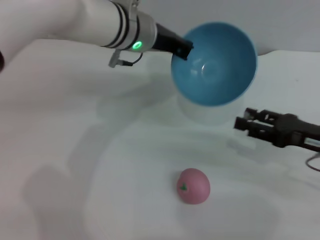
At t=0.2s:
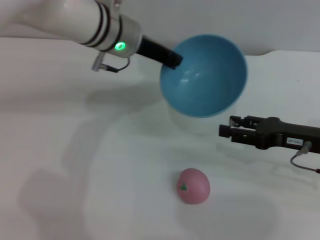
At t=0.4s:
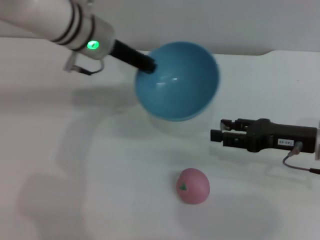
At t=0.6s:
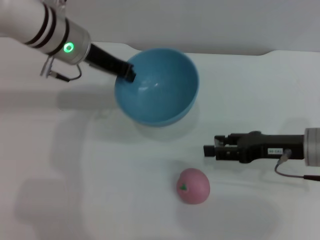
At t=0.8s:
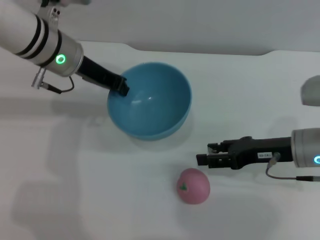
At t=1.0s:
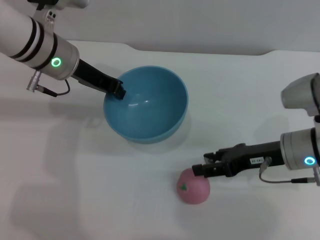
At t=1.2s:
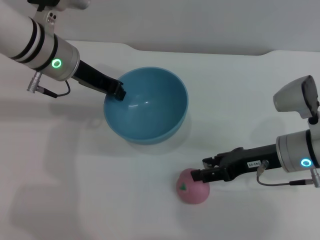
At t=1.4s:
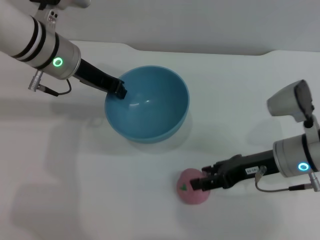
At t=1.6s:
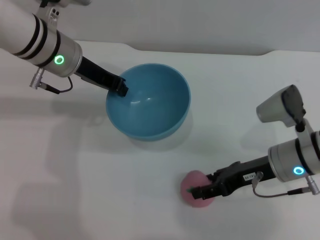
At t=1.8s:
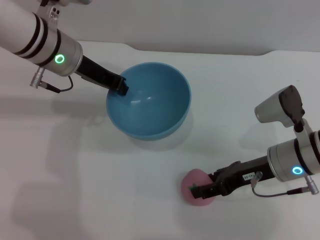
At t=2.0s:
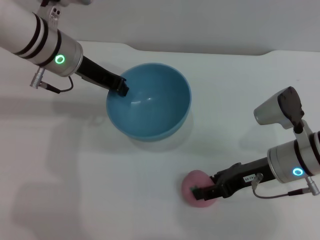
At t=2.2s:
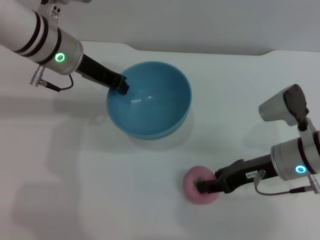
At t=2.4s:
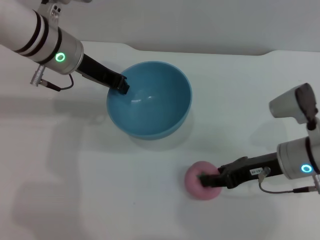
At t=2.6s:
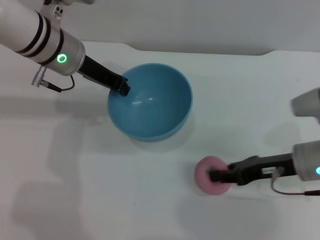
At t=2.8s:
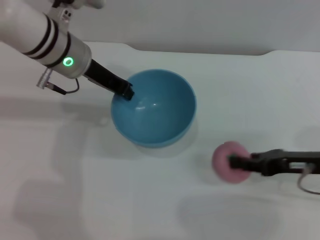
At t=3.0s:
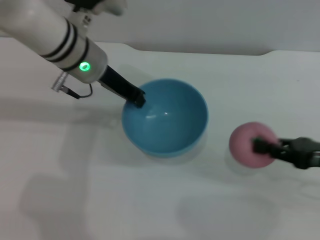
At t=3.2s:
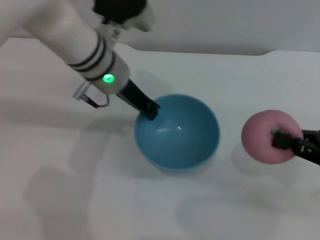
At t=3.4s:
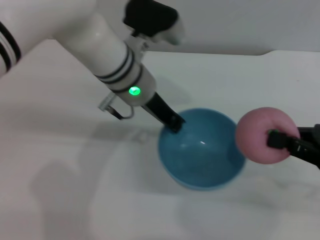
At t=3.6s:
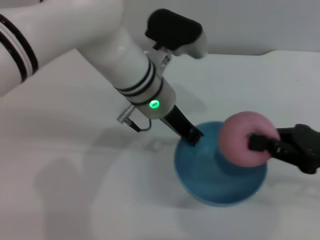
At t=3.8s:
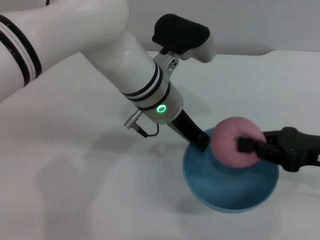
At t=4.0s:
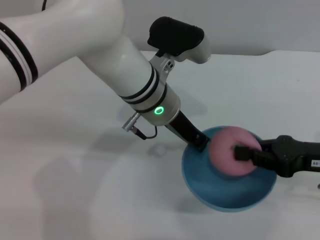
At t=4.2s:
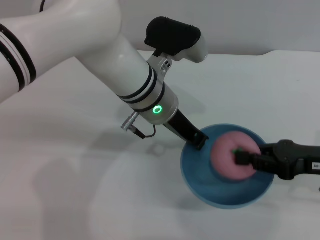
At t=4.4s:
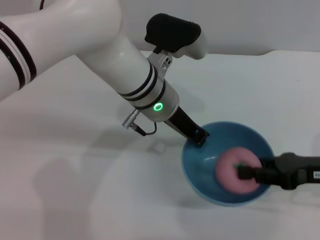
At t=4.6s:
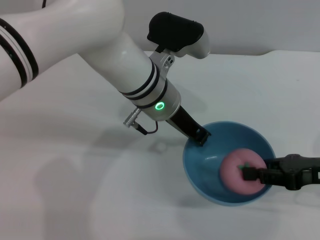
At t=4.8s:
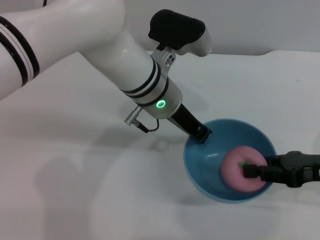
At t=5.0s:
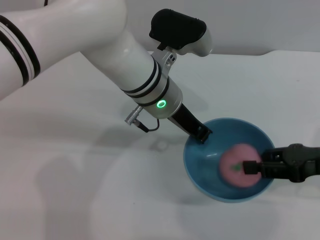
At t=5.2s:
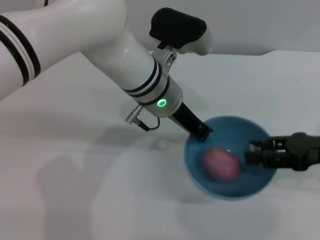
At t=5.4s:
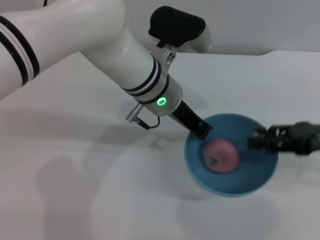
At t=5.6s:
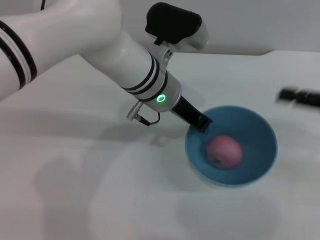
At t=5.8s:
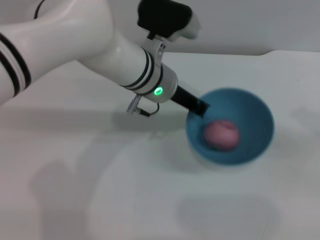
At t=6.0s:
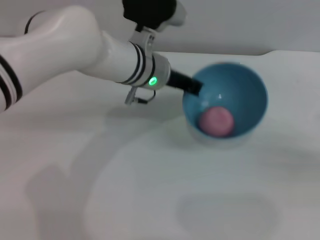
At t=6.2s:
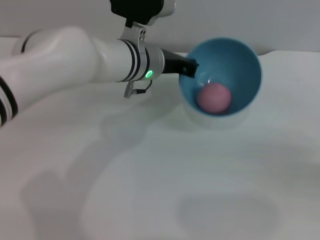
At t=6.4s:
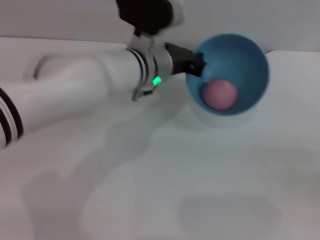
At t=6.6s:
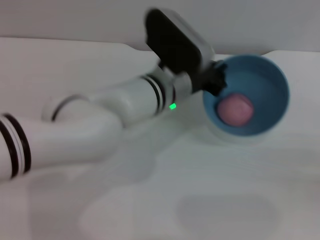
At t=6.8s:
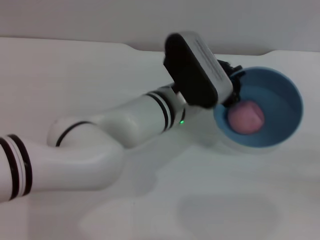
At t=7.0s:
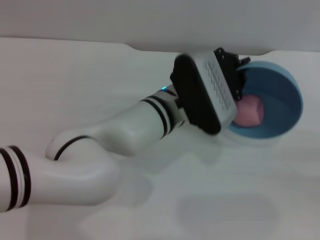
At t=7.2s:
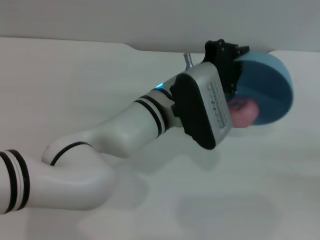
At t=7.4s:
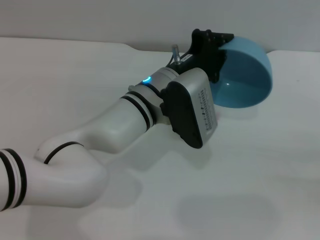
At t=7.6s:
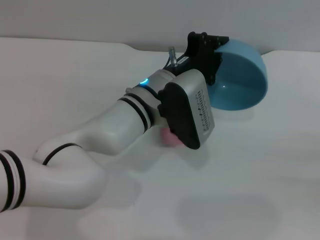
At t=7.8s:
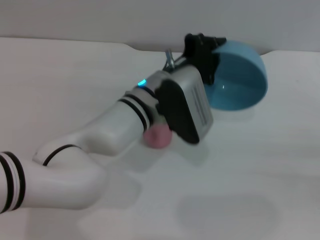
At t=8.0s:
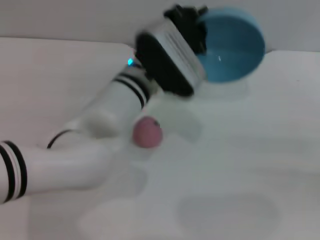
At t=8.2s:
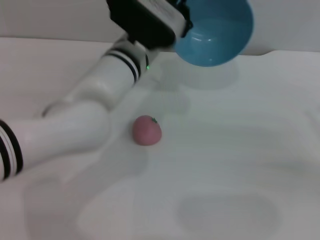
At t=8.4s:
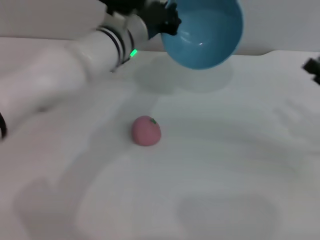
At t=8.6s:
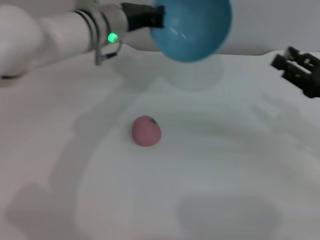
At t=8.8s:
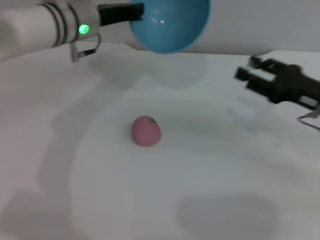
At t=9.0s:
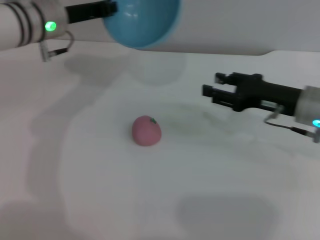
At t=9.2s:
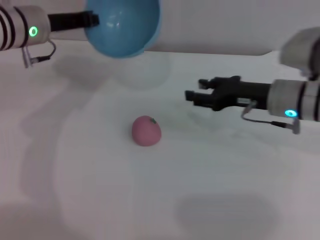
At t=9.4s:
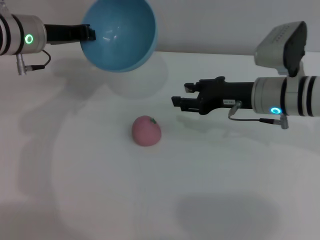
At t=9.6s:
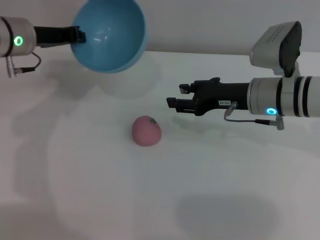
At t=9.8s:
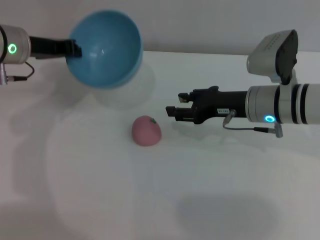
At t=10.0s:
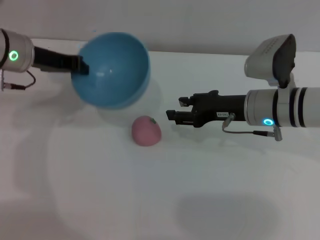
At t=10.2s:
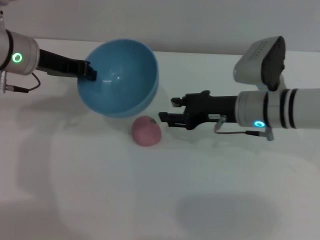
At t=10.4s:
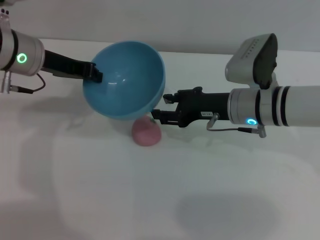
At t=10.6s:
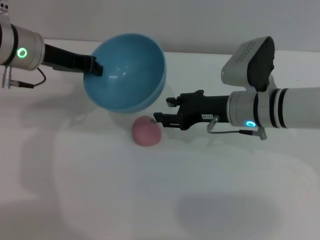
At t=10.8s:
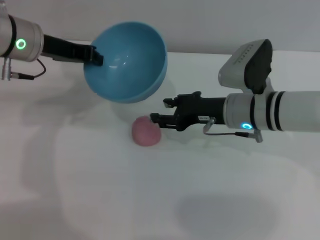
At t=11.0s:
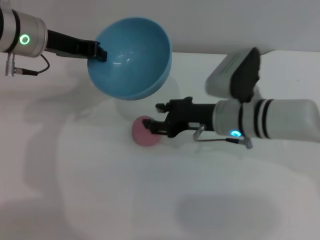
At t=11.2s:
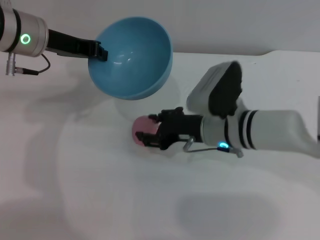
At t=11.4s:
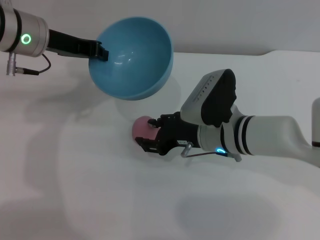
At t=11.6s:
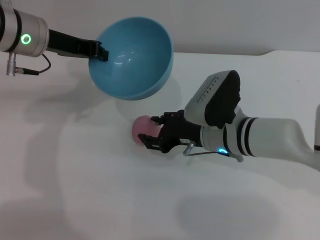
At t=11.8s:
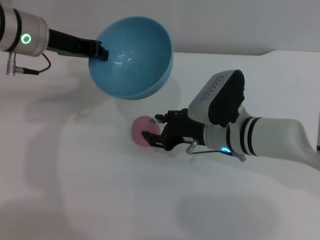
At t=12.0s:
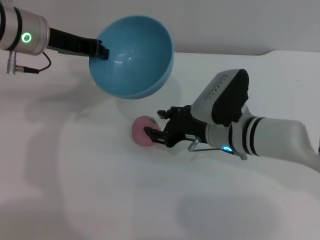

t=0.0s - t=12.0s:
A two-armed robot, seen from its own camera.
Task of the whole recording: put the peach into the blue bowl and pour it out repeatedly.
Step, t=0.0s - t=2.8s: Pick up the peach with the right gripper.
Step, t=3.2s - t=5.4s: Place the peach into the bowl.
Step, t=5.6s - t=7.8s: Pour the peach out of bowl.
t=0.0s - t=1.6s: Both grippers move to the left, some 10 cm.
t=1.6s - t=3.0s: The right gripper travels to the right by roughly 10 cm, and closes up.
t=3.0s - t=4.4s: The left gripper moves to the right, roughly 10 cm.
t=4.4s - t=6.0s: The right gripper heads to the right, covering some 10 cm, and opens up.
t=6.0s - t=7.6s: The left gripper is displaced backward by some 5 cm; the right gripper ends up some 5 cm from where it was.
t=7.6s - t=9.0s: The left gripper heads to the left, forward and upward, covering roughly 20 cm; the right gripper moves to the left and forward, some 25 cm.
t=9.0s - t=10.4s: The right gripper shifts some 10 cm to the left.
t=10.4s - t=12.0s: The right gripper changes place by about 5 cm.

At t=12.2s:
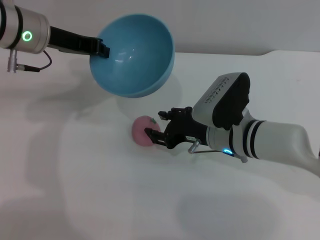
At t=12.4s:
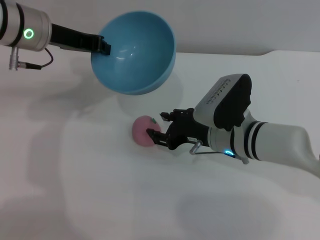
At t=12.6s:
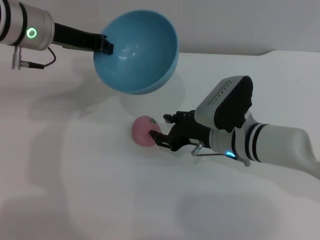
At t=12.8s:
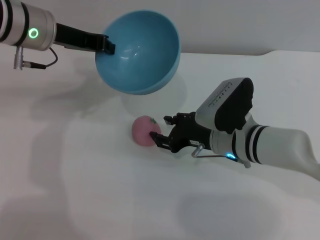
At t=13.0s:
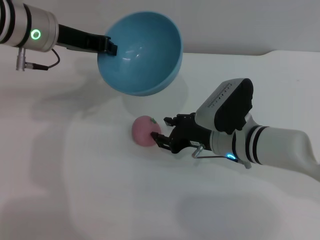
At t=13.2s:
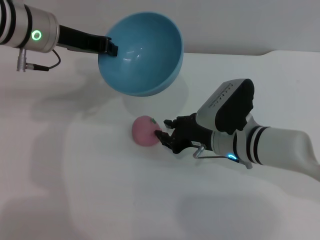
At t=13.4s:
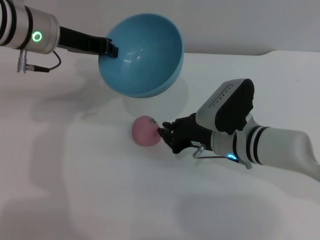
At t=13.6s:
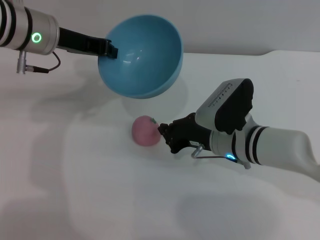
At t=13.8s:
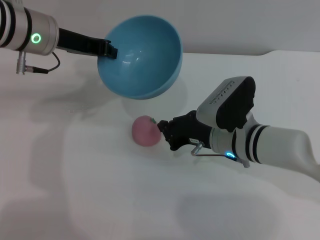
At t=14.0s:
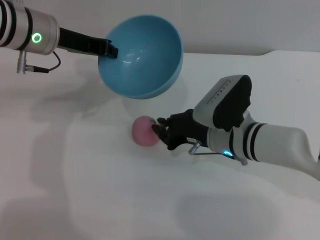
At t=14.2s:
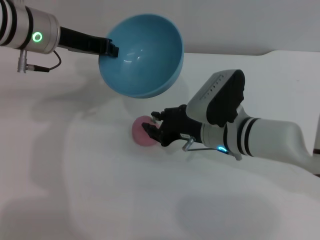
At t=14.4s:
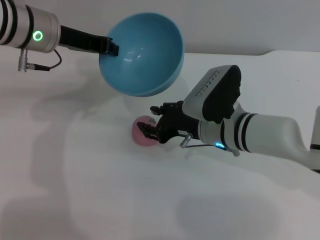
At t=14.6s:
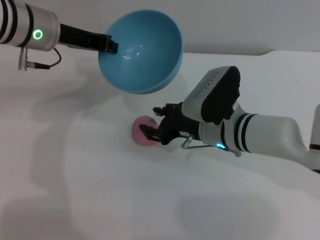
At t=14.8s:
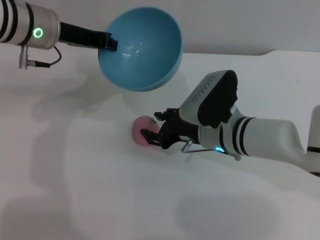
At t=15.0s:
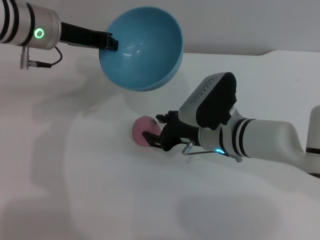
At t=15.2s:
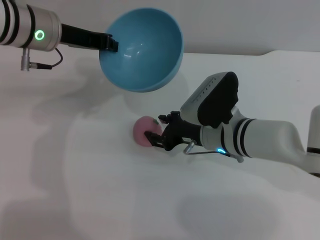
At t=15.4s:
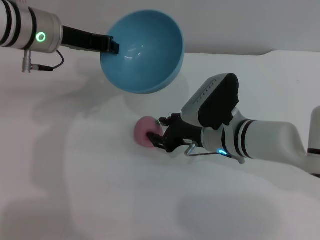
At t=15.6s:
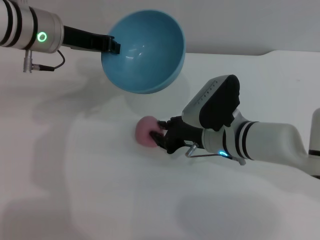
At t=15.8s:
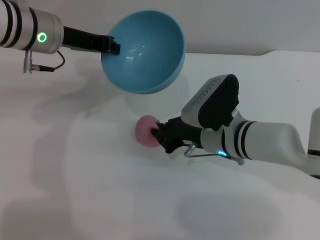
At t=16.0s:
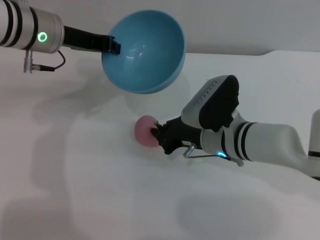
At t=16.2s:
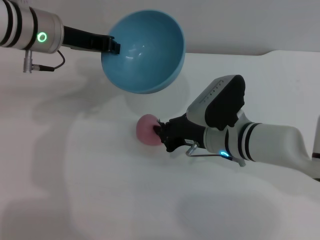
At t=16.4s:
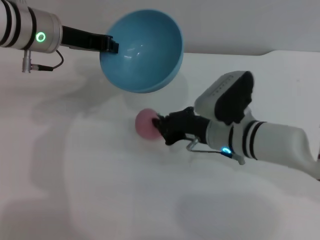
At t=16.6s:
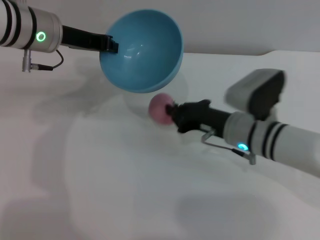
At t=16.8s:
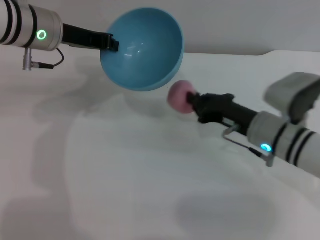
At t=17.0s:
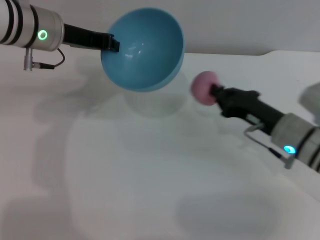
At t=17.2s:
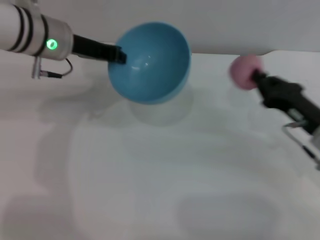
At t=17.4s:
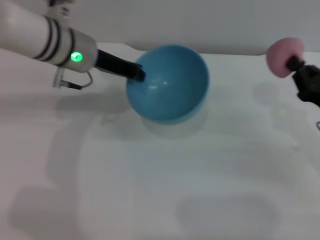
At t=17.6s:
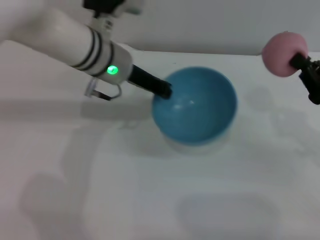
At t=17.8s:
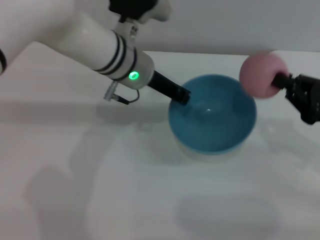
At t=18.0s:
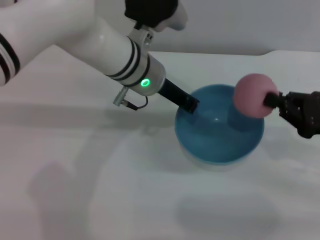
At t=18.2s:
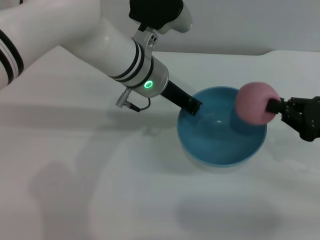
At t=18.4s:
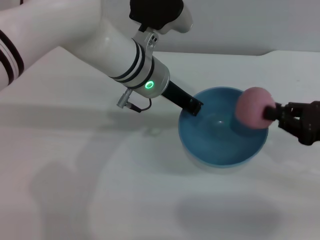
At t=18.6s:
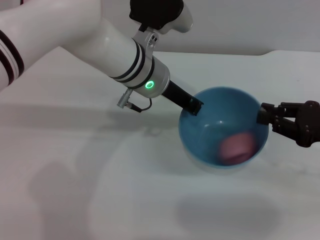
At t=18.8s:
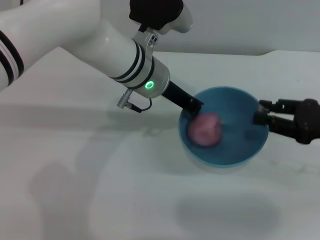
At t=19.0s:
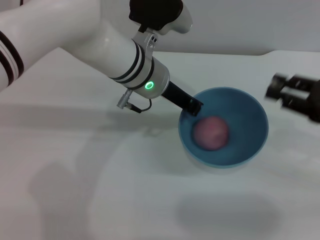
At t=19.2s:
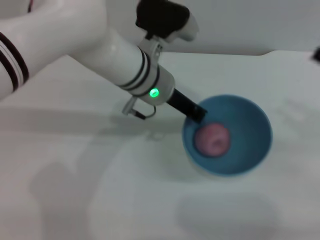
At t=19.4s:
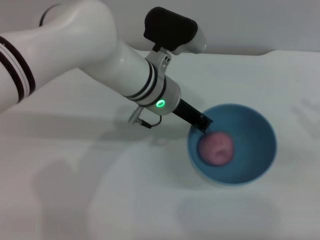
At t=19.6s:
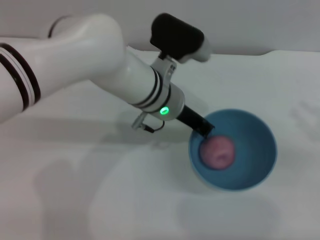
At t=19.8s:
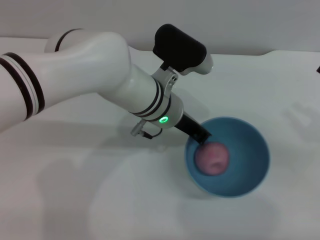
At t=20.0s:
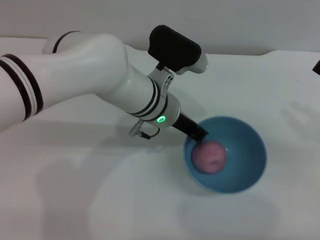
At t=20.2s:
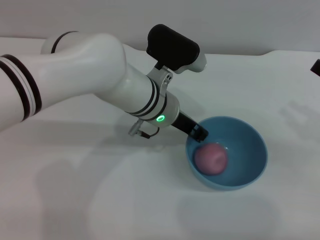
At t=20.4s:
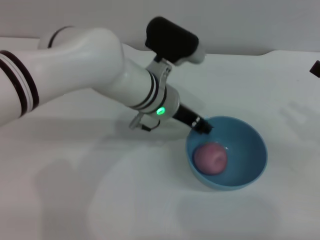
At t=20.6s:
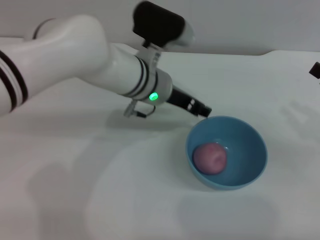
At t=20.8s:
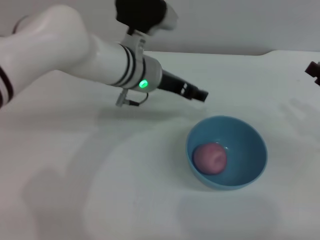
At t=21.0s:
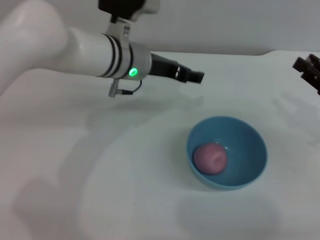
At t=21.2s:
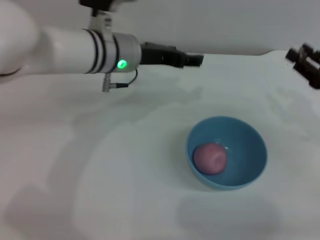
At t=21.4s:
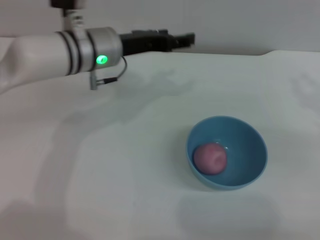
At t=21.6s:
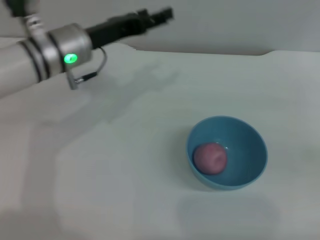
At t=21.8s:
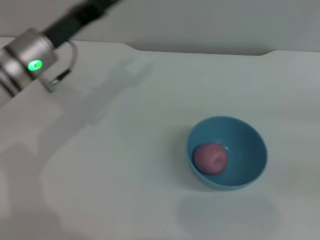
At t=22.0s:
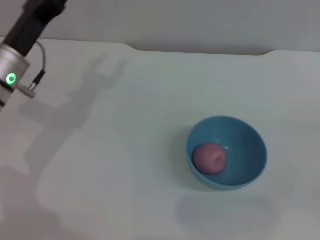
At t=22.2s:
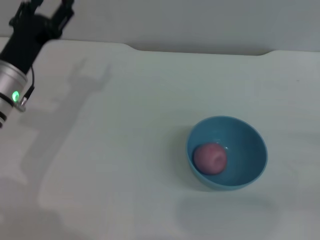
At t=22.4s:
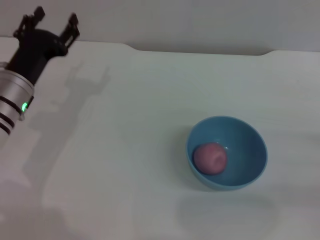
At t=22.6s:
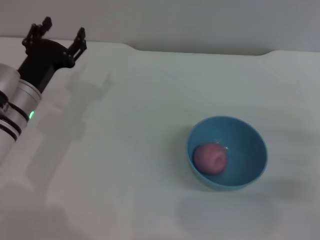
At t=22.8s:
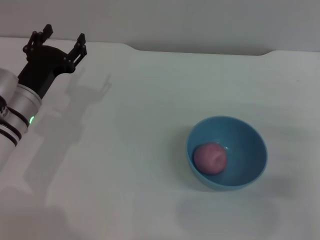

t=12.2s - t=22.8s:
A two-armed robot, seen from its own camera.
Task of the whole recording: put the peach into the blue bowl and pour it out repeatedly.
Step, t=12.2s - t=16.6s: Pick up the peach with the right gripper.
Step, t=17.0s - t=18.8s: Place the peach into the bowl.
Step, t=19.0s - t=20.8s: Place the bowl on the table.
t=12.2s - t=13.8s: The right gripper closes.
t=13.8s - t=15.2s: The right gripper opens up.
t=15.2s - t=16.8s: The right gripper shifts approximately 5 cm to the right, and closes up.
t=16.8s - t=18.2s: The two grippers go about 15 cm to the right.
t=18.2s - t=19.8s: The right gripper opens its fingers, while the left gripper shifts by some 5 cm.
t=19.8s - t=21.2s: The right gripper ends up some 5 cm from where it was. Meanwhile the left gripper heads to the left, covering some 5 cm, and opens.
t=21.2s - t=22.8s: The right gripper is displaced backward and downward by approximately 10 cm, and reaches about 10 cm to the right, then returns. Meanwhile the left gripper travels to the left, downward and backward by about 20 cm.
